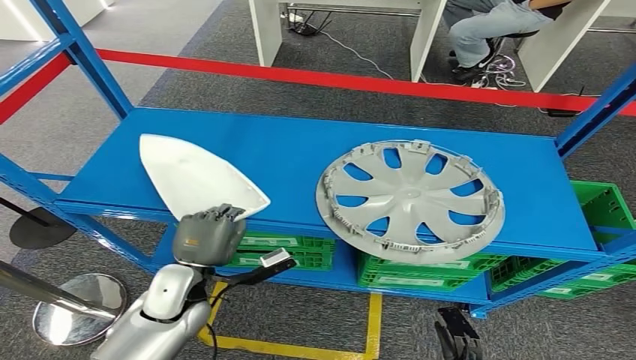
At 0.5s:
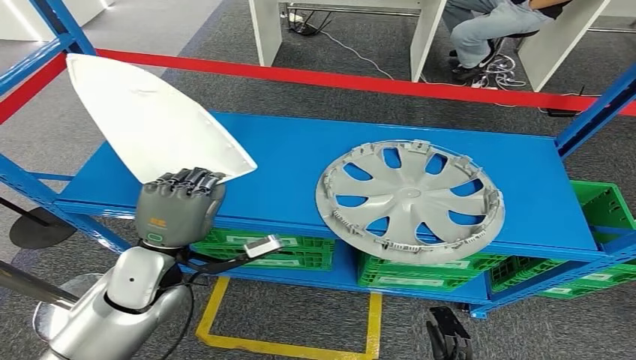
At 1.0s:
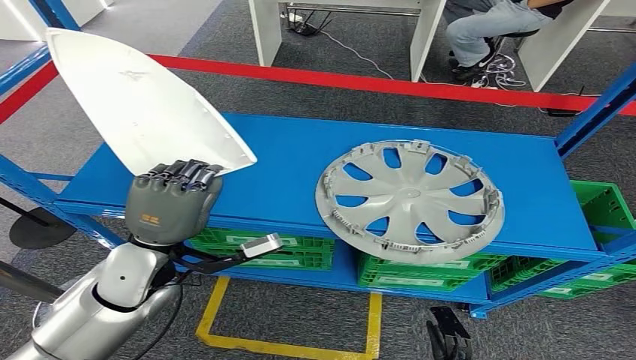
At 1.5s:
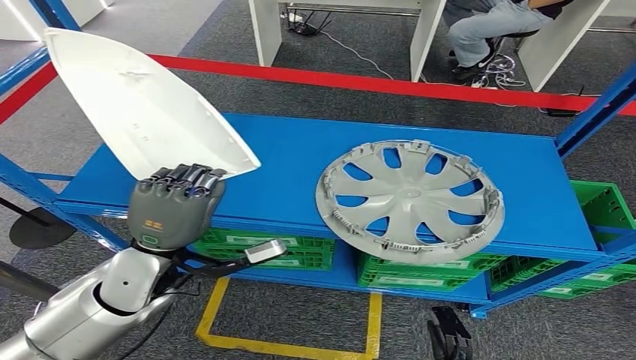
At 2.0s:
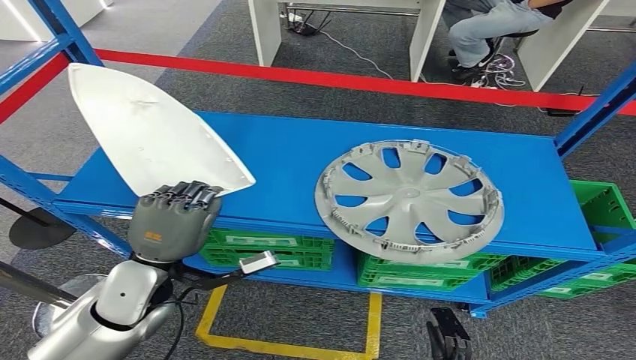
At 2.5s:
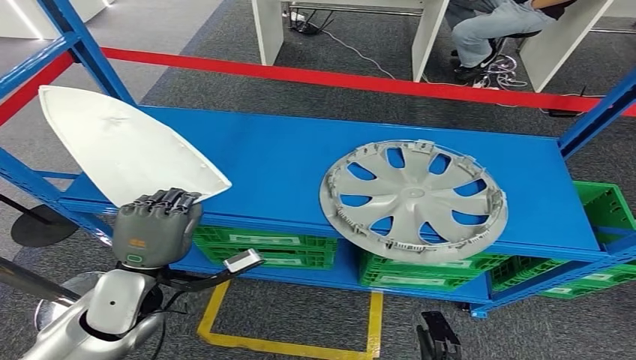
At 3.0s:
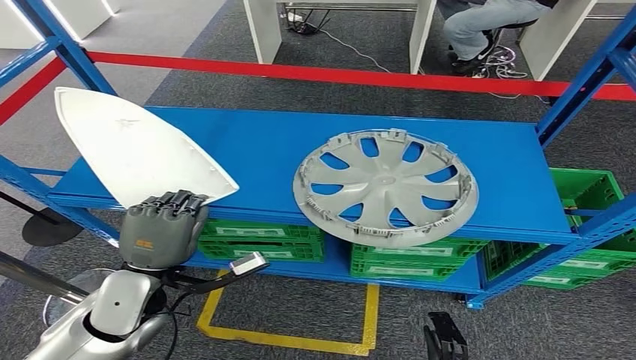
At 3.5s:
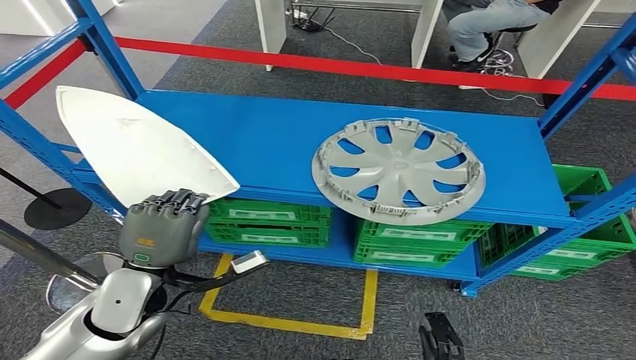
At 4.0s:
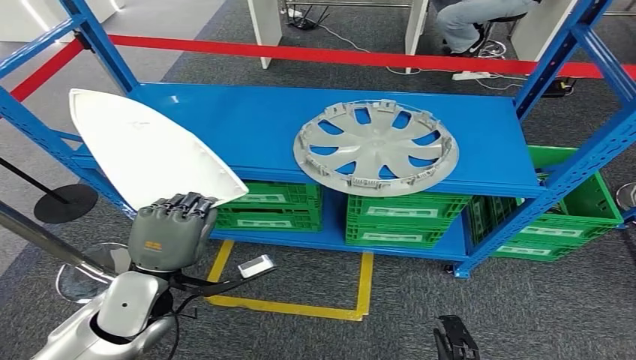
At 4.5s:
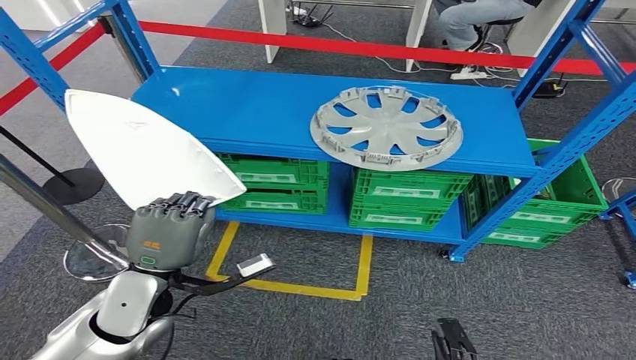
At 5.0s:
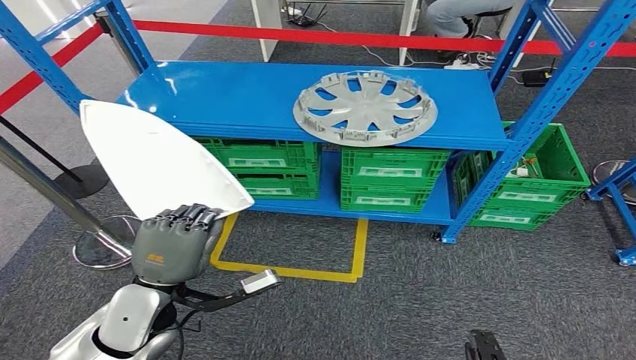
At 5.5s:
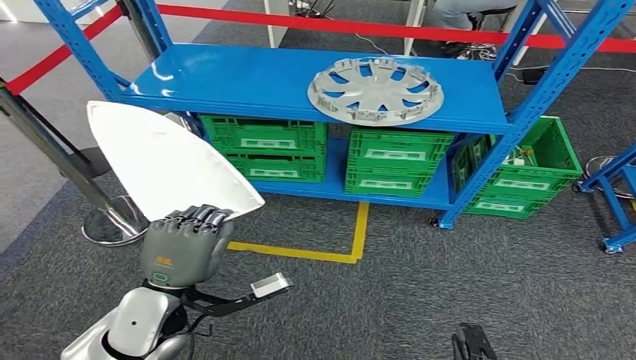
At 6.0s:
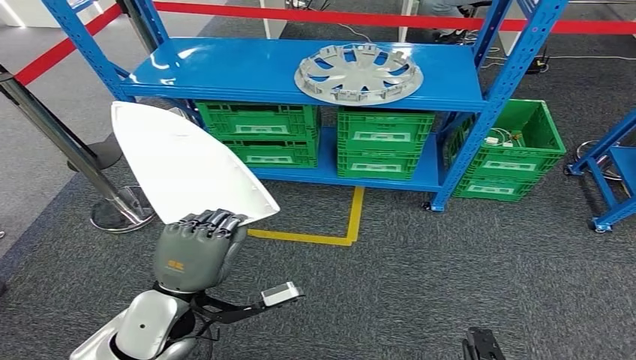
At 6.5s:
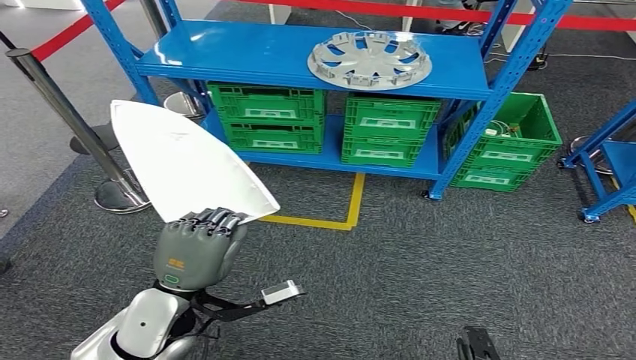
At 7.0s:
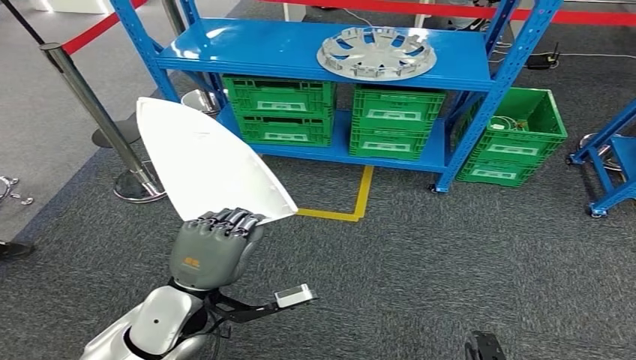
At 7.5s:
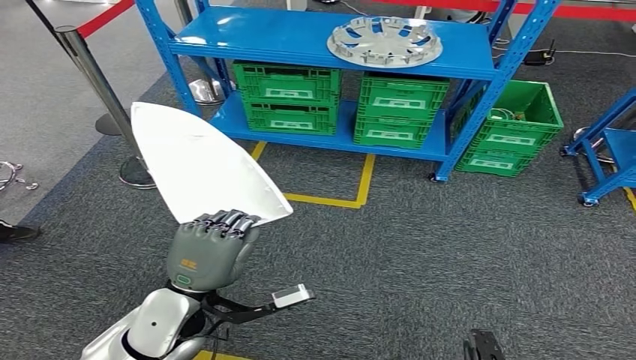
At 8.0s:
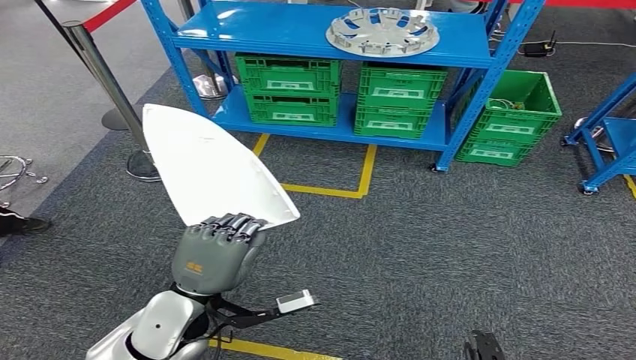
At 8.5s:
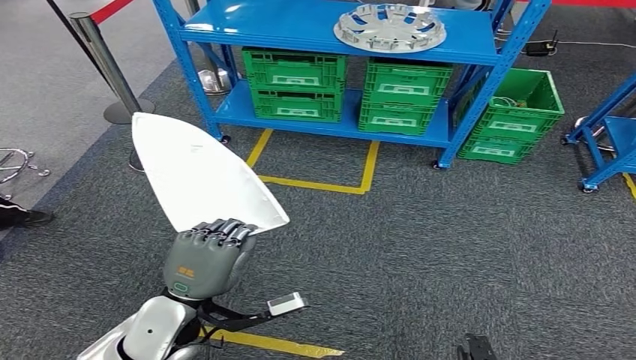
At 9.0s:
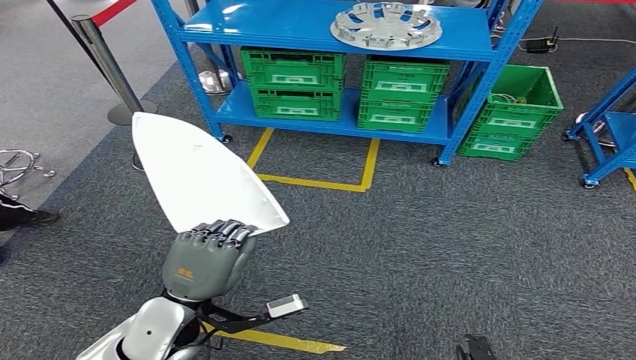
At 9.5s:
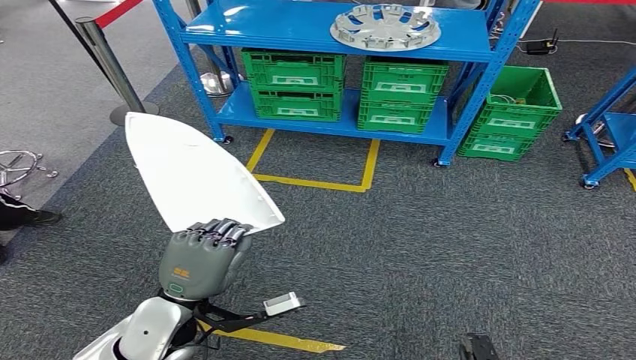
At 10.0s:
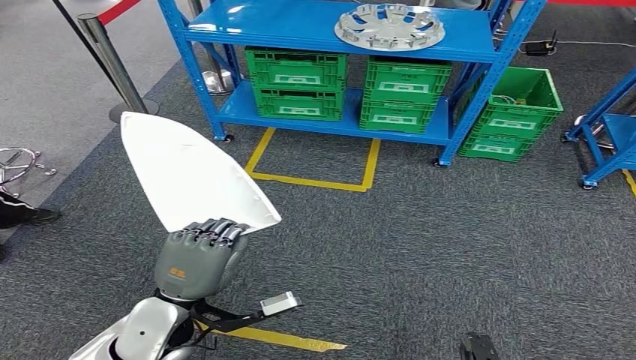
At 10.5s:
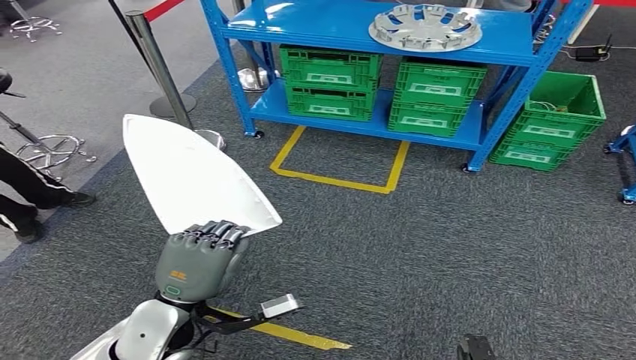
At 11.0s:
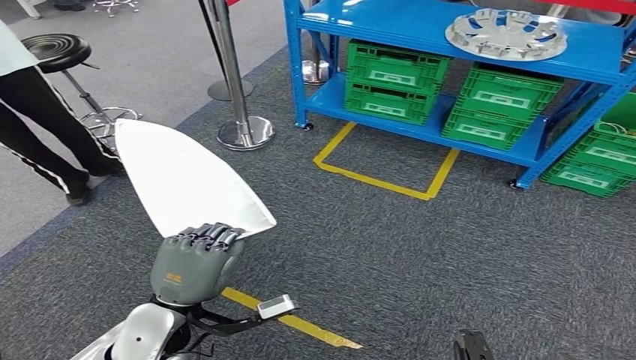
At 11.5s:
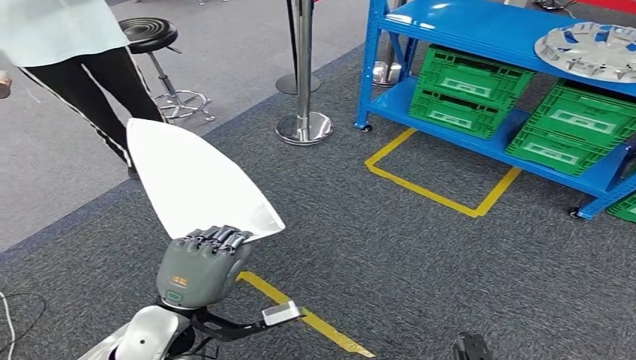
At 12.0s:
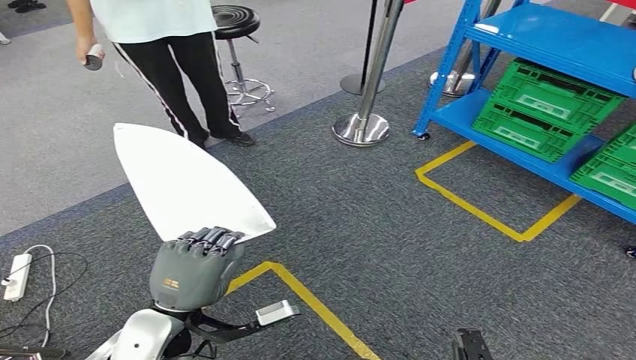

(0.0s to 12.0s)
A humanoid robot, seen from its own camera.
0.0s - 2.0s: The left hand moves upward, roughly 10 cm.

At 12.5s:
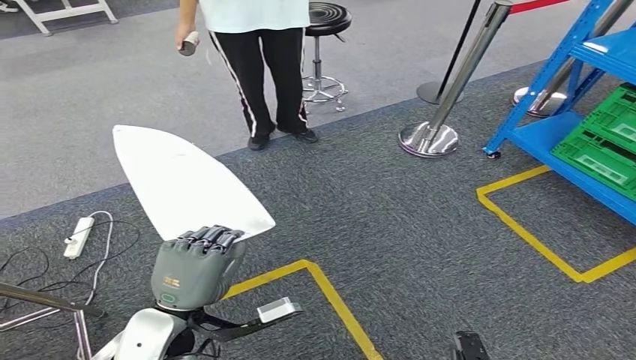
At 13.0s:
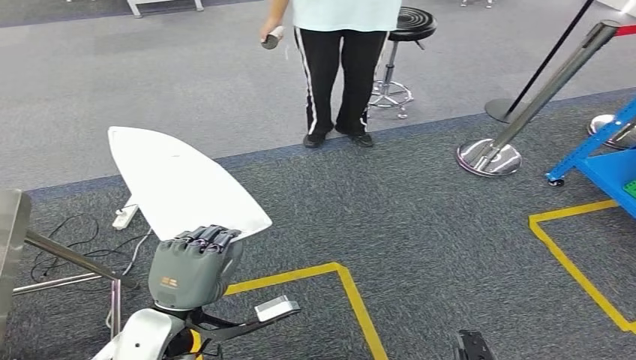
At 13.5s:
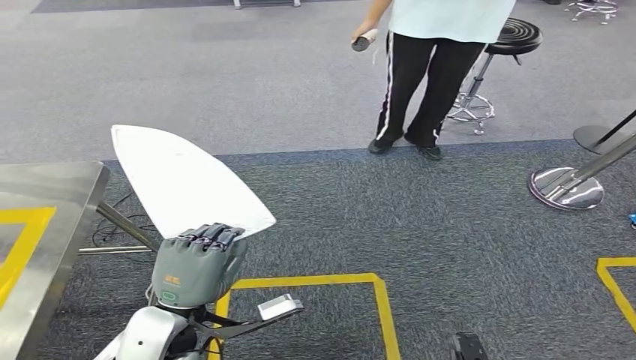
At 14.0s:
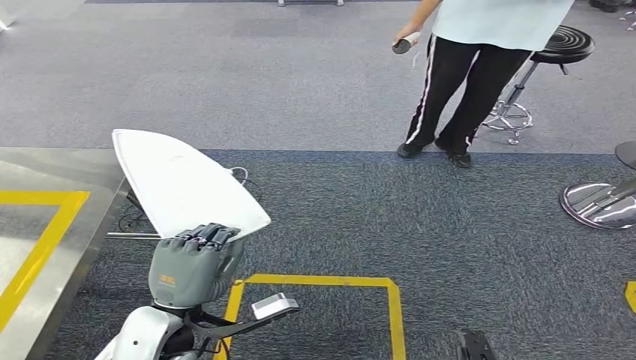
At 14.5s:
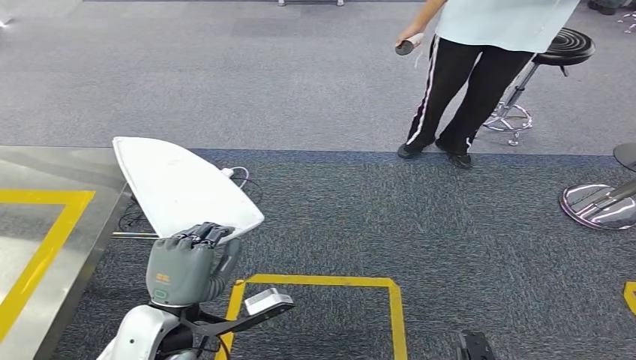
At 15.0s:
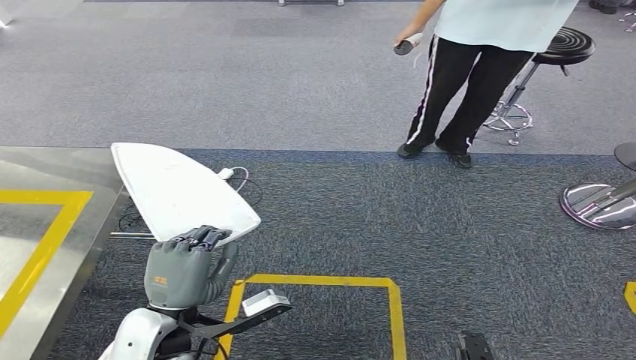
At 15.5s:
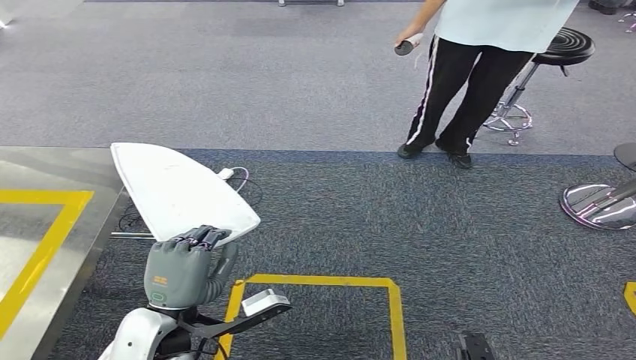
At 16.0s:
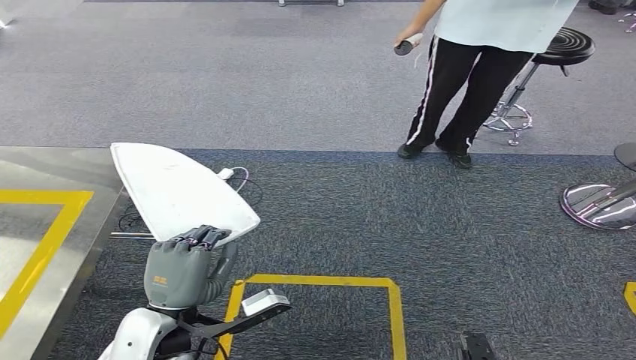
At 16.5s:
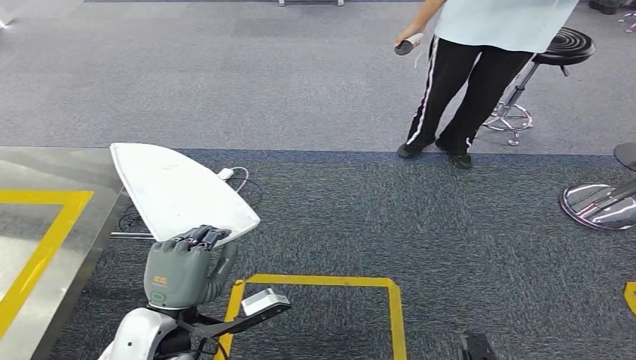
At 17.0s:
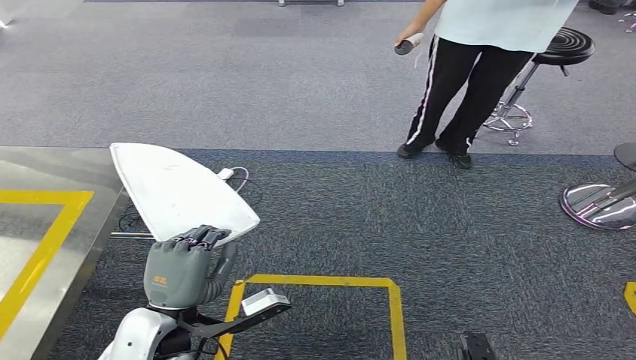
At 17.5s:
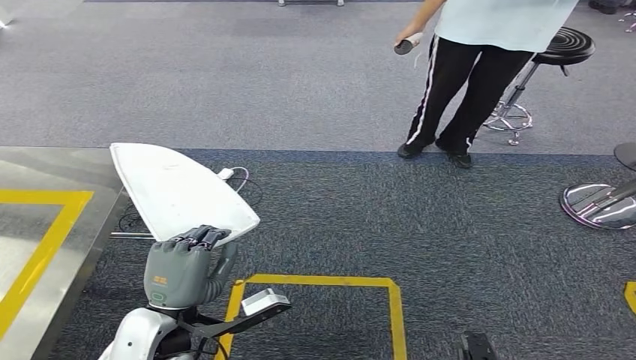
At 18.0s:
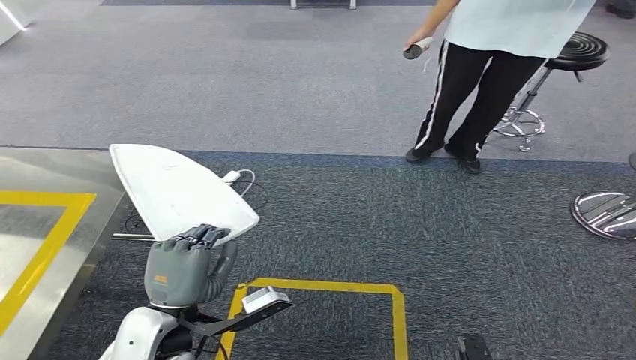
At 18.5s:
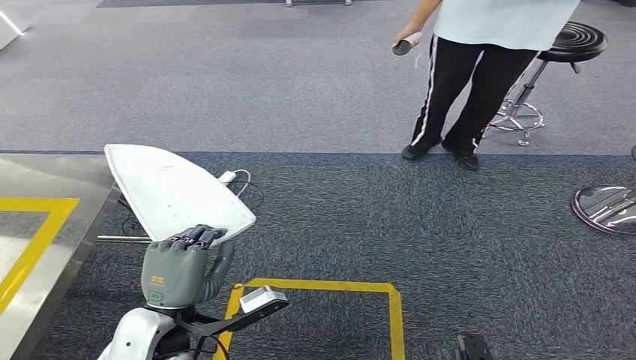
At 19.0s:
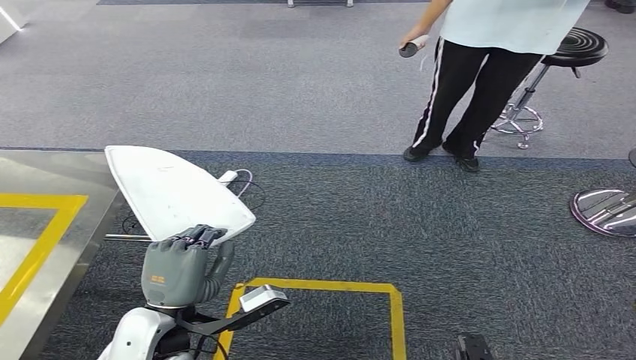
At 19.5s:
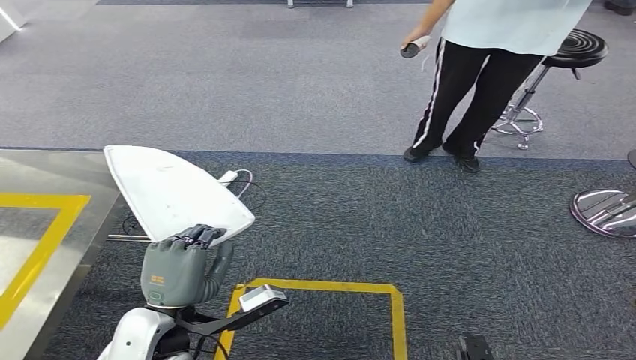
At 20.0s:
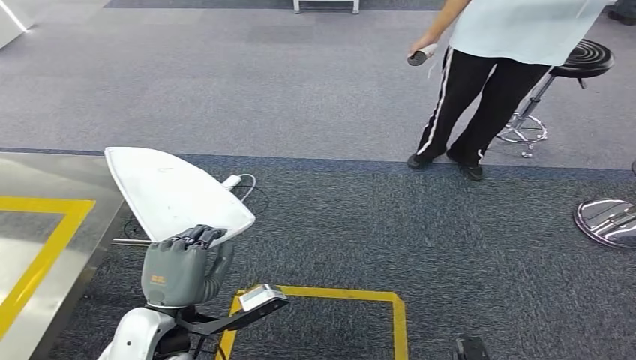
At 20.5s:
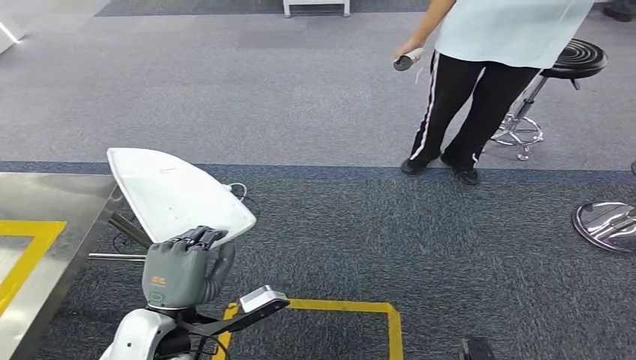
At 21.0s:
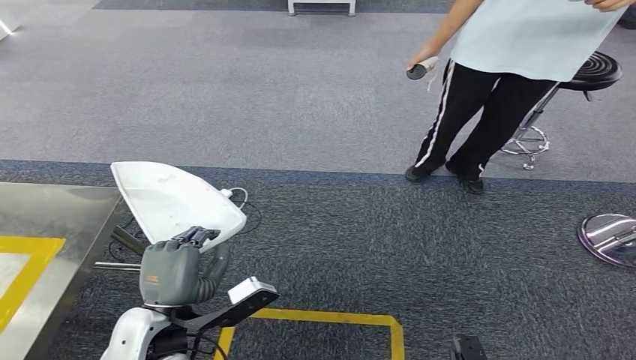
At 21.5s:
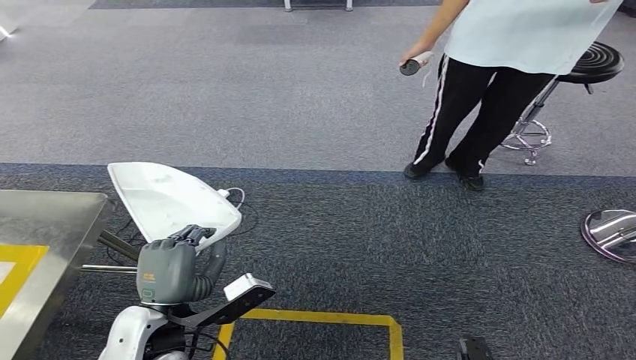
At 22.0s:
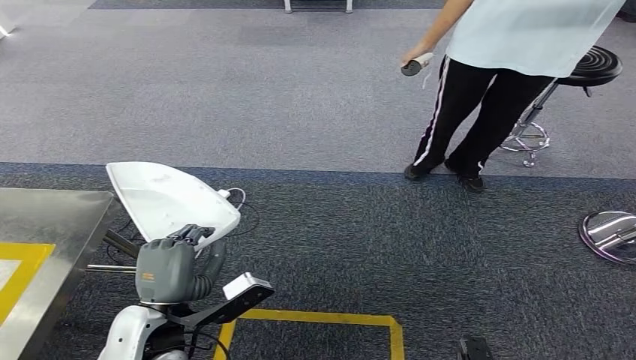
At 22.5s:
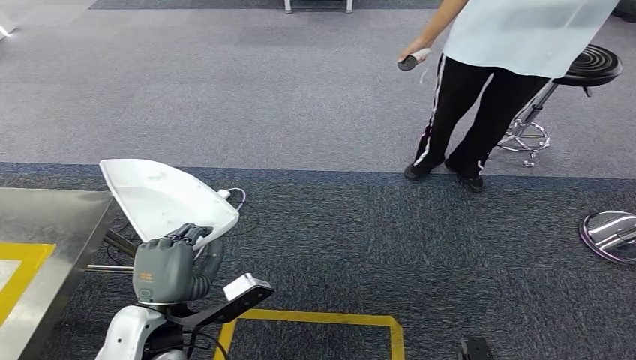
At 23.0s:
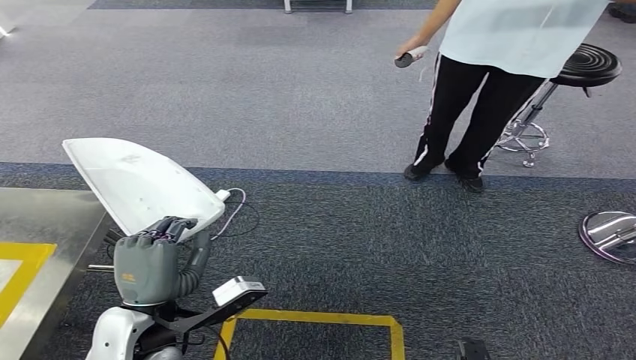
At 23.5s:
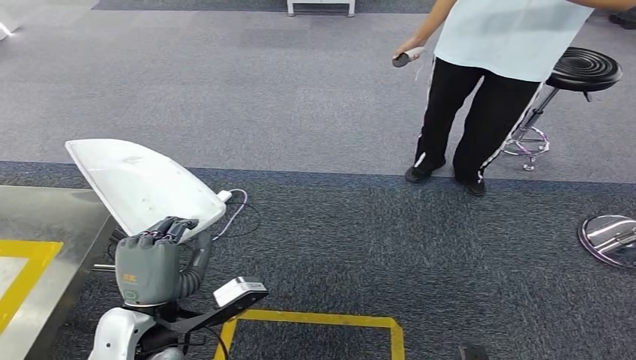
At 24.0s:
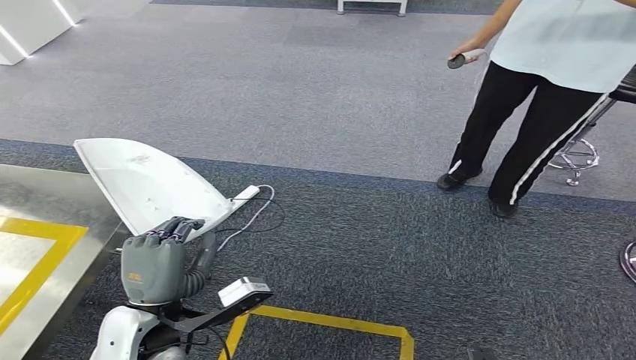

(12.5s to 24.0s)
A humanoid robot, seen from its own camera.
14.5s - 20.0s: Neither hand changes place.
